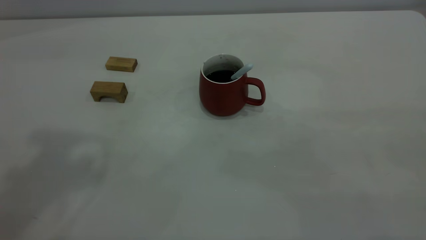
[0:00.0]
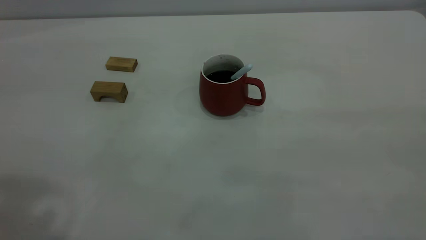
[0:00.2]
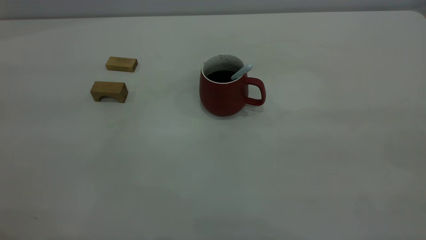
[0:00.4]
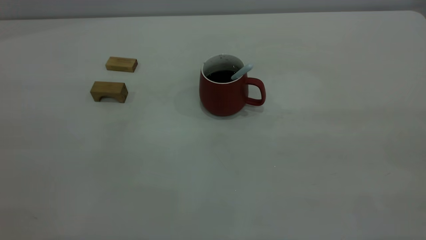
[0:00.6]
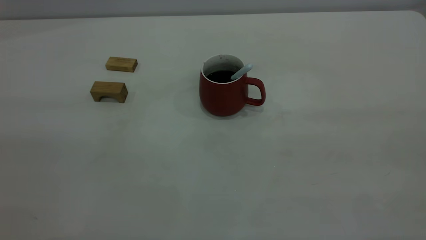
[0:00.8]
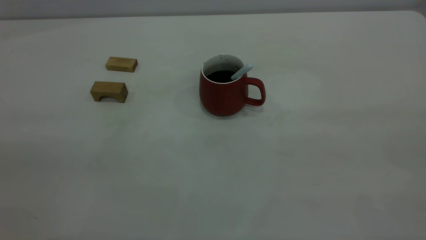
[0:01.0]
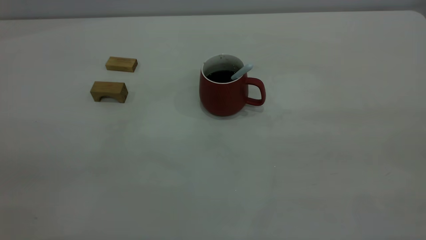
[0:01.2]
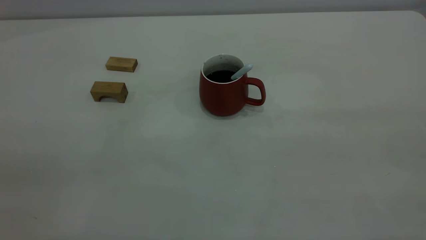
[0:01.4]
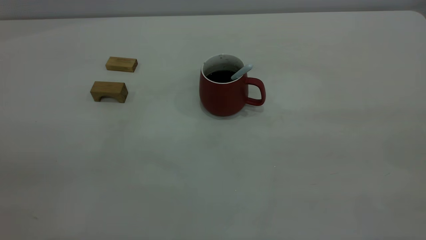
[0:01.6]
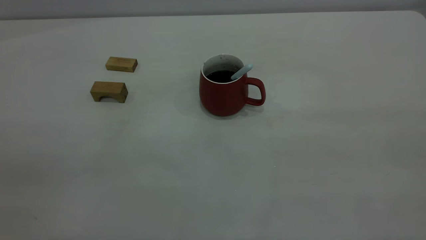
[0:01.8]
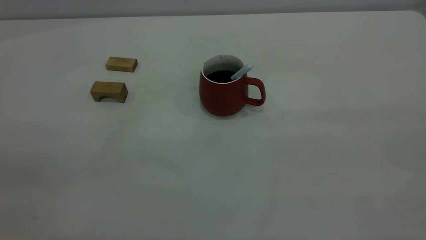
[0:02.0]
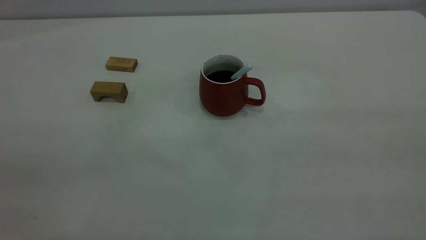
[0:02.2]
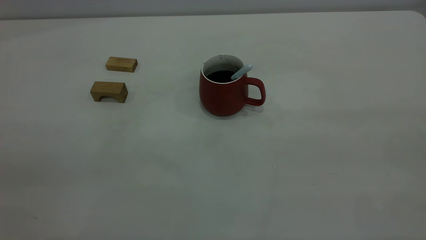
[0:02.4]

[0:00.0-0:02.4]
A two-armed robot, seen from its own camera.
0:01.2 to 0:02.4: The two grippers keep their place.
